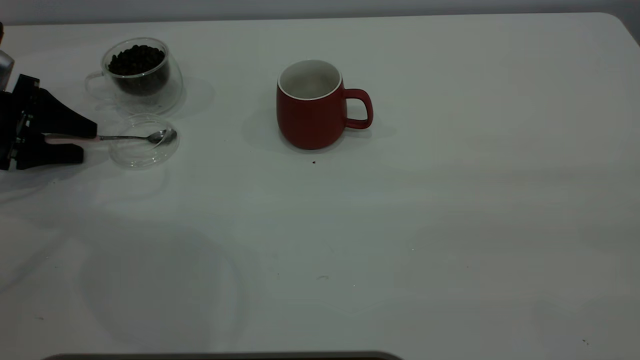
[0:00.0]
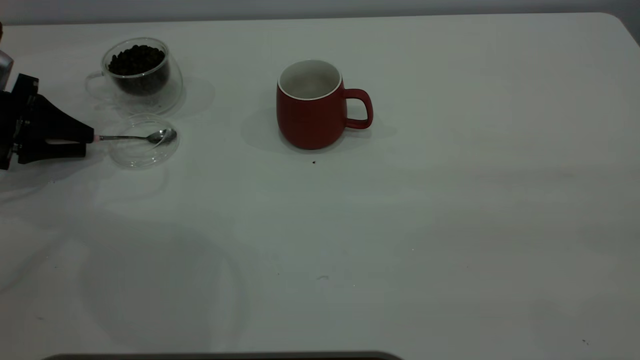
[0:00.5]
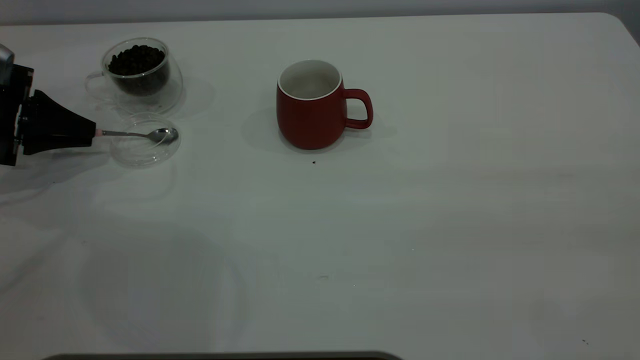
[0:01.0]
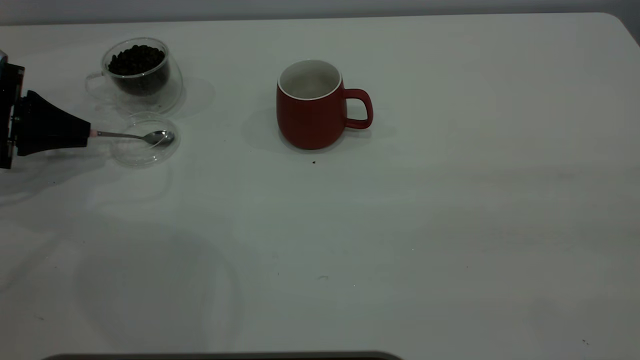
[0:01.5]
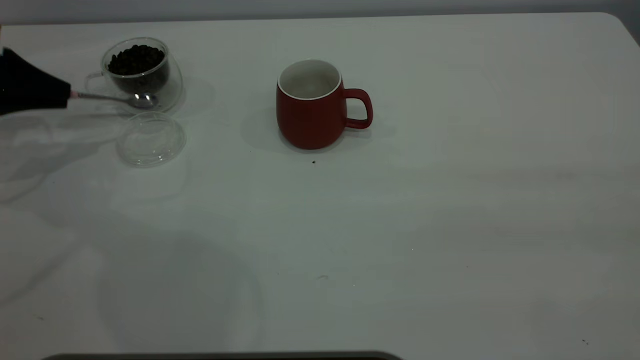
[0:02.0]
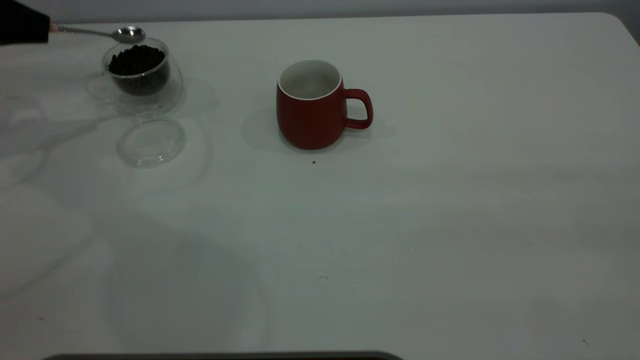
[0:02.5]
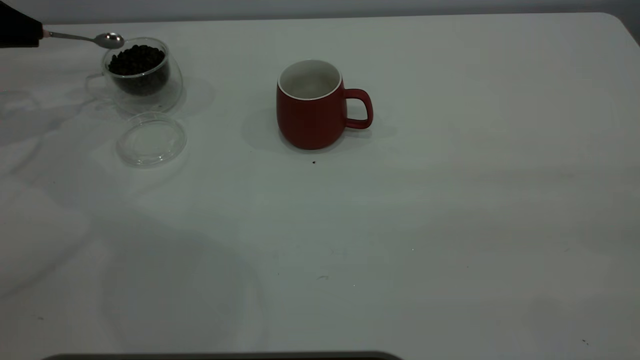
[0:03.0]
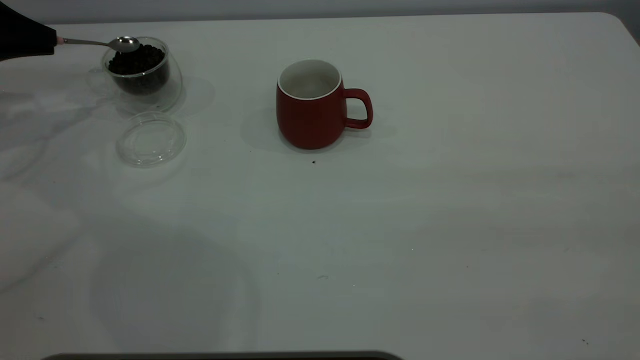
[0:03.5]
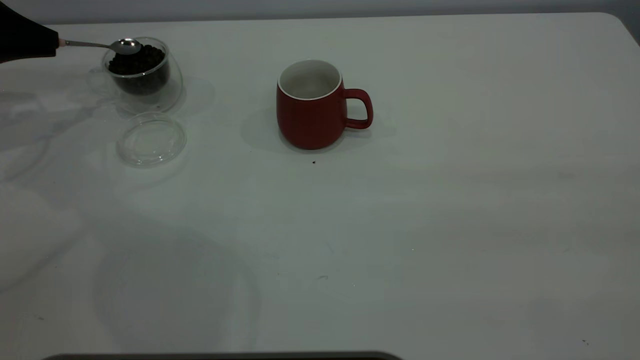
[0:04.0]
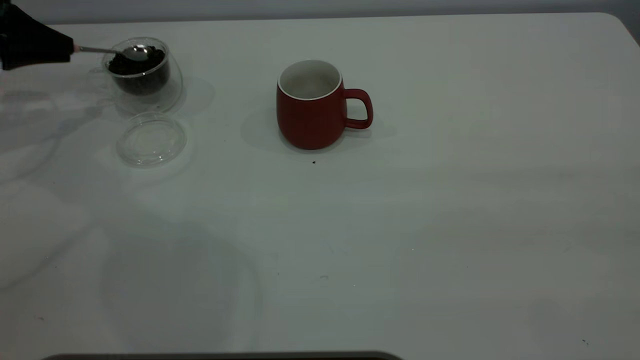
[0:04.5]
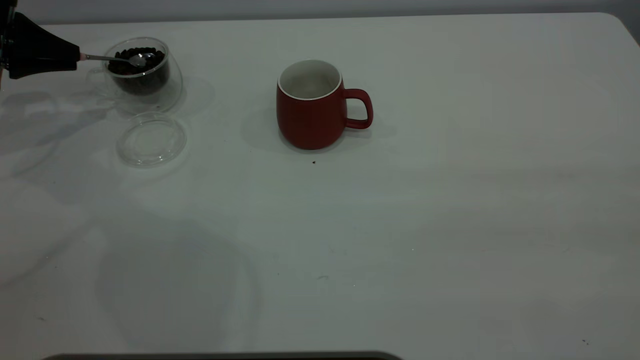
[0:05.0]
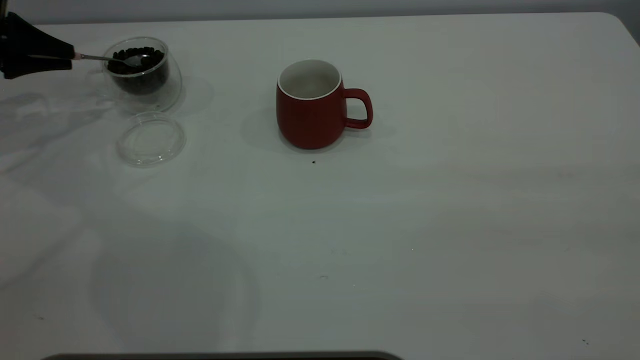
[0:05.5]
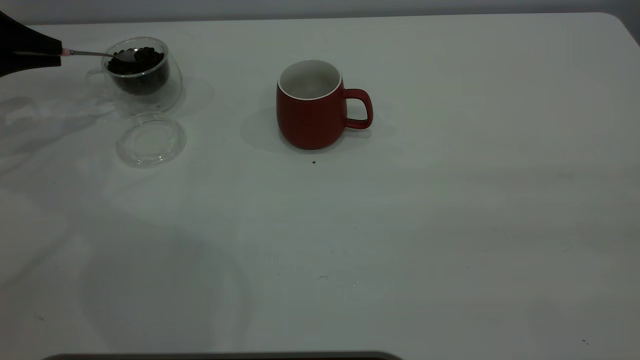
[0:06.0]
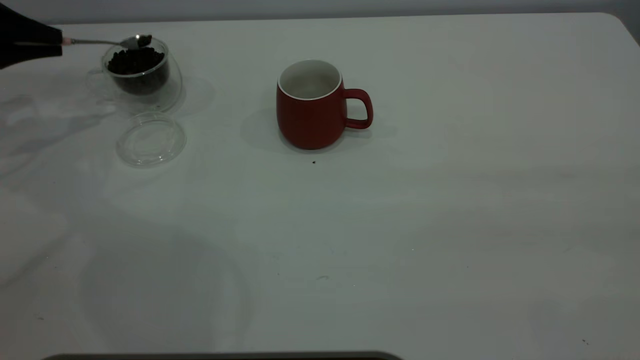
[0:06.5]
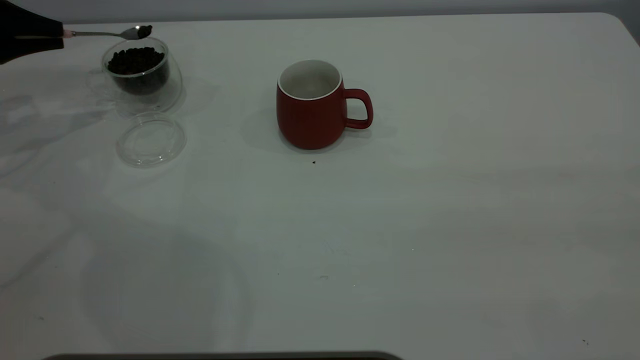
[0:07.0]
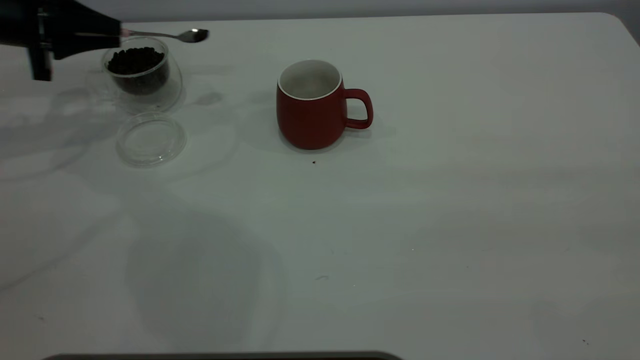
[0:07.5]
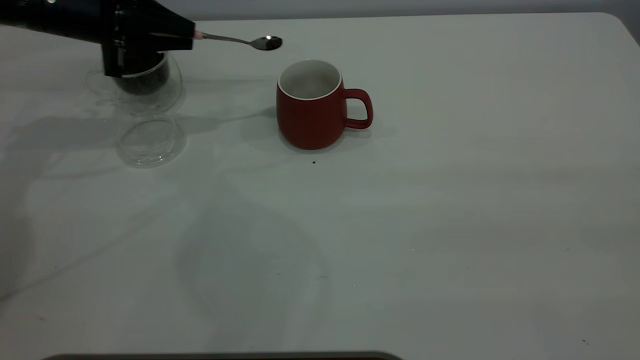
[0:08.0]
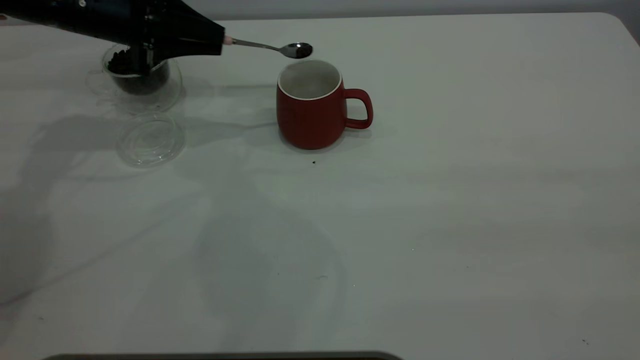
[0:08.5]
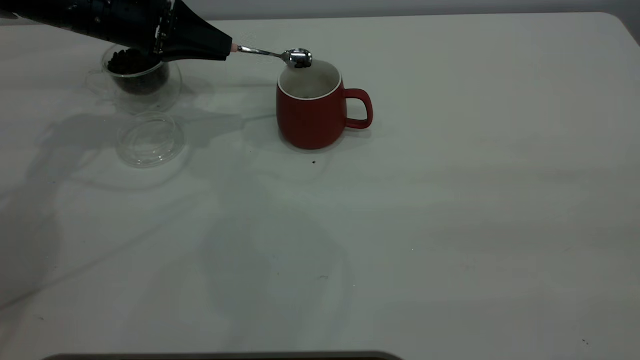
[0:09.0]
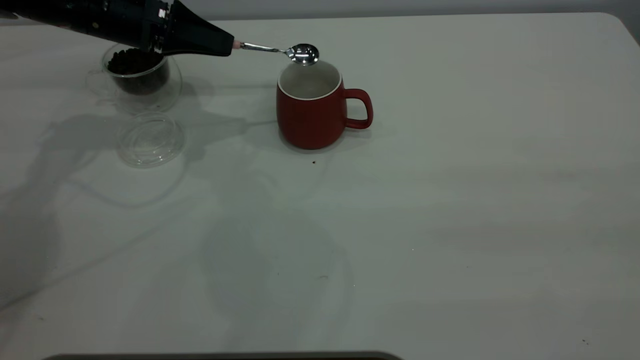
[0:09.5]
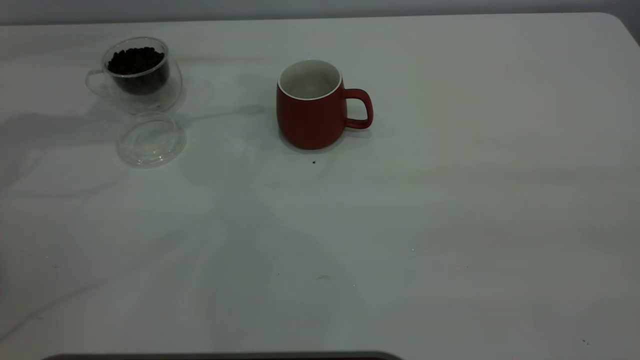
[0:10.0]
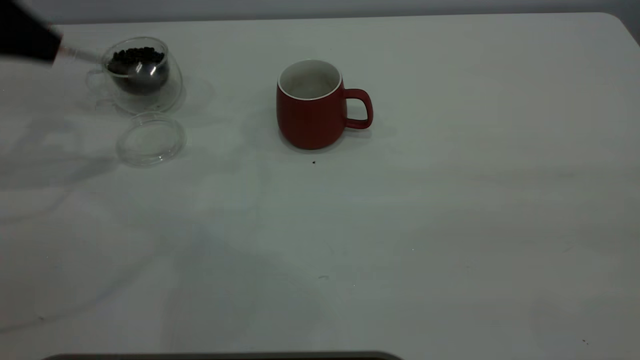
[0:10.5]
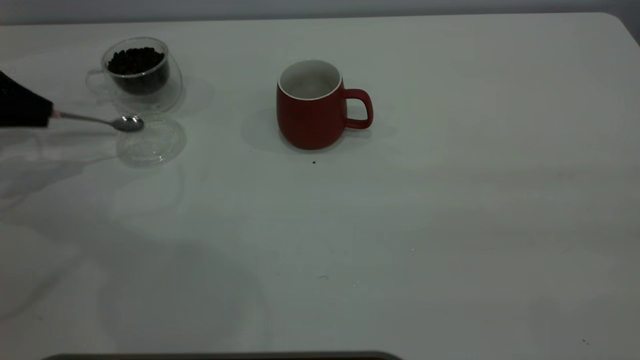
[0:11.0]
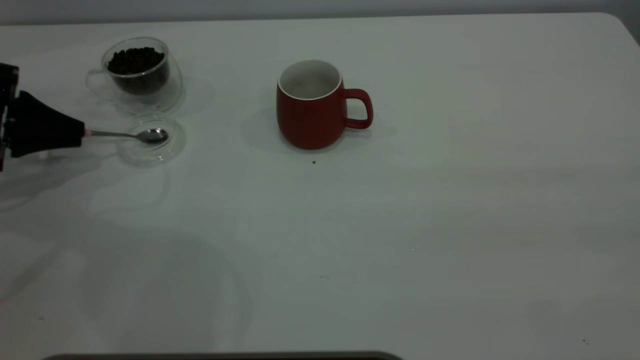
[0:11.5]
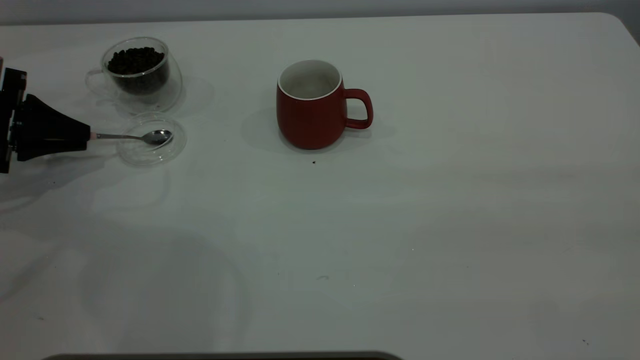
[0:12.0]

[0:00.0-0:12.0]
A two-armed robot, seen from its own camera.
Task of the whole recording: the right gripper place the red cup in the center of the table, the left gripper take the pink spoon from the cup lid and scoop out the coffee beans from the coffee cup and put them into the red cup, the left gripper put the spoon back into the cup lid.
Step, 0:00.0 to 0:02.0: Pick up the spoon.
Step, 0:02.5 to 0:09.5: Scoop a spoonful of beans into the cup.
0:00.0 to 0:02.0: The left gripper travels upward by roughly 5 cm, and closes up.
0:02.0 to 0:04.0: The left gripper shifts by approximately 5 cm.
0:04.0 to 0:06.0: The grippers stay close to where they were, moving slightly.
0:06.0 to 0:08.0: The left gripper goes some 15 cm to the right.
0:08.0 to 0:10.0: The left gripper goes roughly 10 cm upward.
0:10.0 to 0:12.0: The left gripper heads downward, to the left and backward, covering about 20 cm.

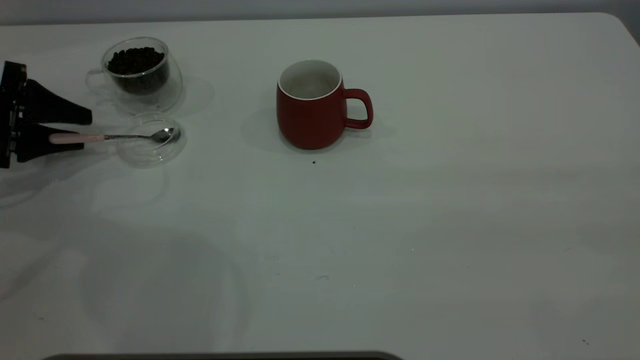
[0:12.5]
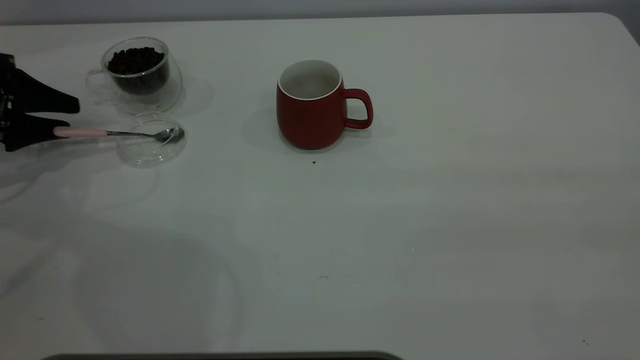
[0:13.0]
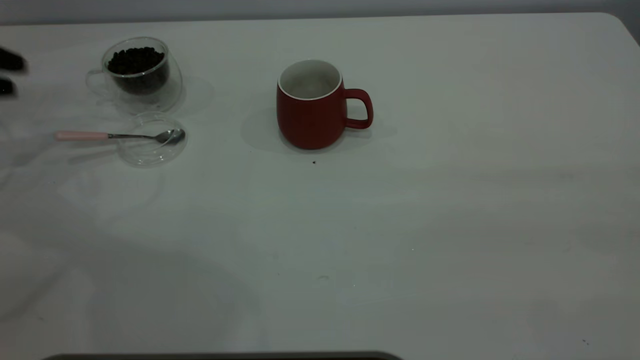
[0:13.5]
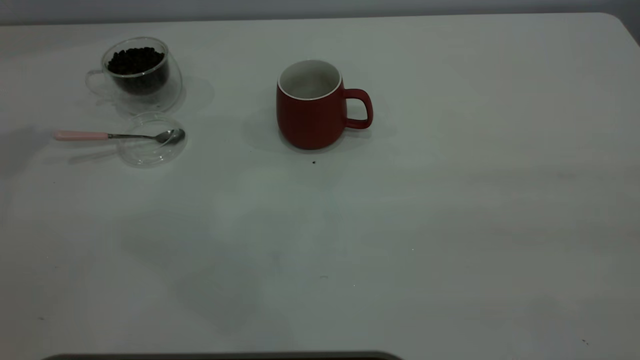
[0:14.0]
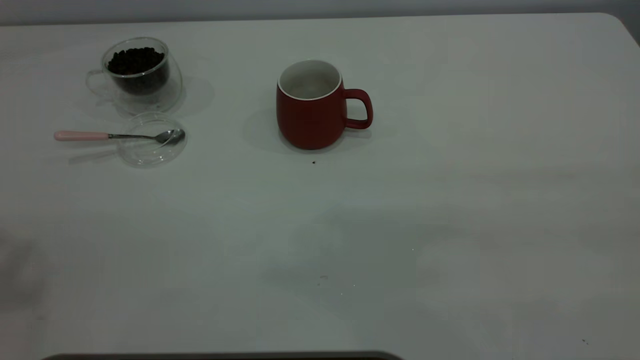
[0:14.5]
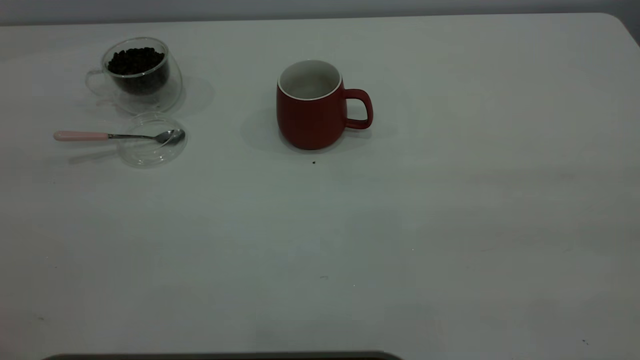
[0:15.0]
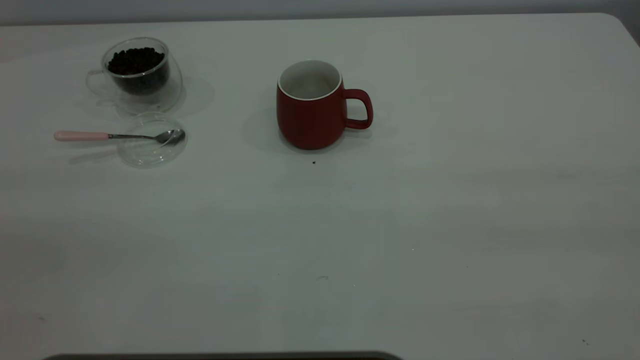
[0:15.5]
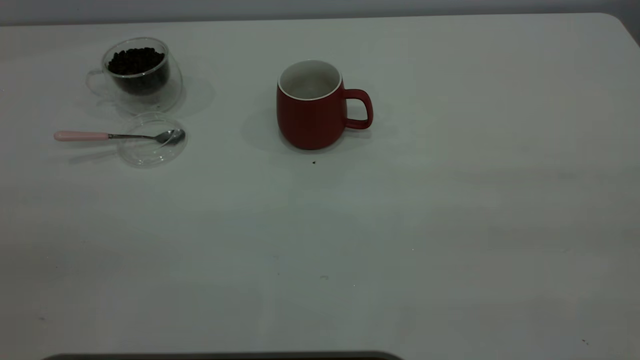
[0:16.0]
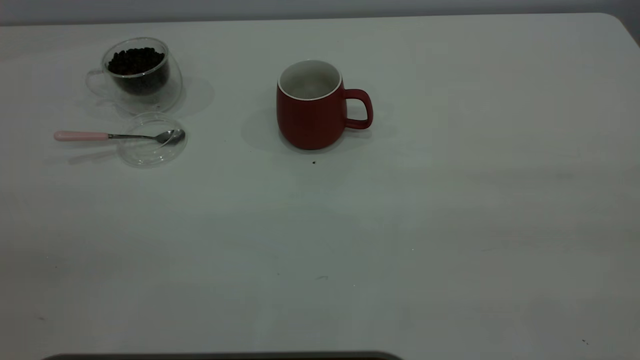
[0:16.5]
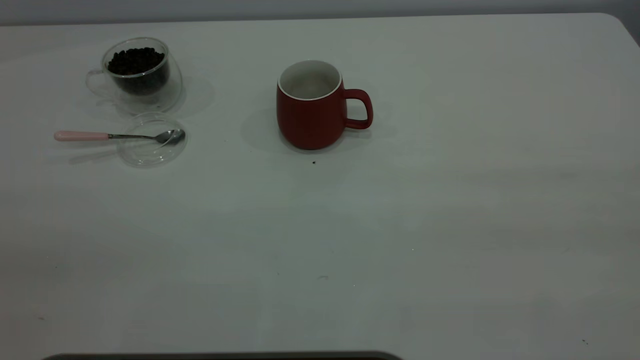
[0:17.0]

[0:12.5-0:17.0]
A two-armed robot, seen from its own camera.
Task of the whole recording: the right gripper place the red cup in the center of the table, the left gripper take the pink spoon from the cup lid and scoop out the coffee beans from the coffee cup and put them into the red cup, the left gripper put the spoon back into the cup lid.
0:12.5 to 0:14.5: The left gripper is displaced upward and backward by about 50 cm.
